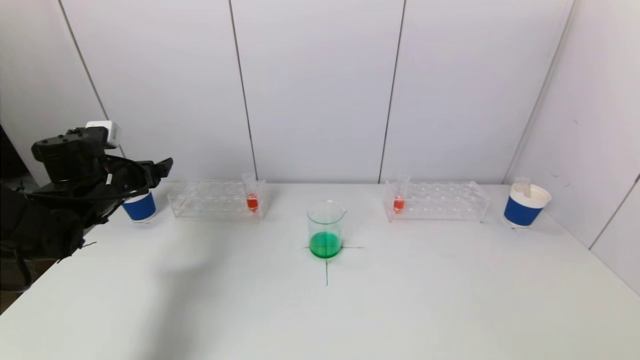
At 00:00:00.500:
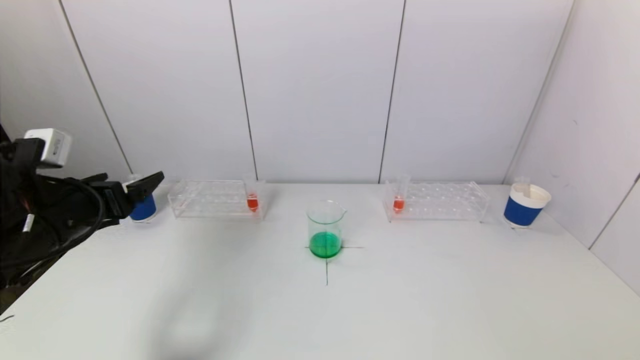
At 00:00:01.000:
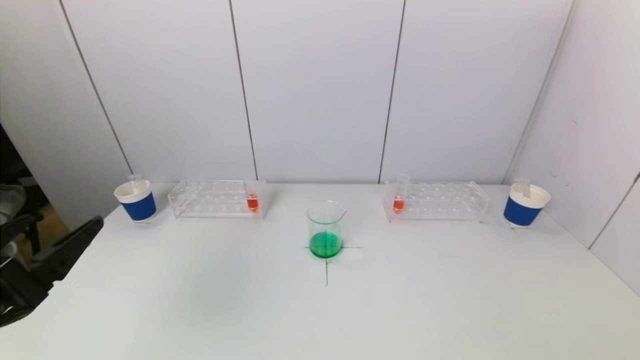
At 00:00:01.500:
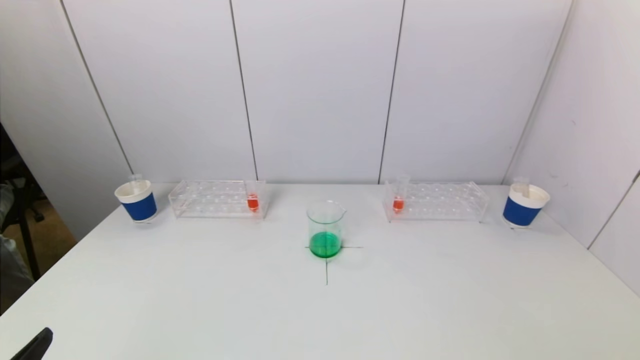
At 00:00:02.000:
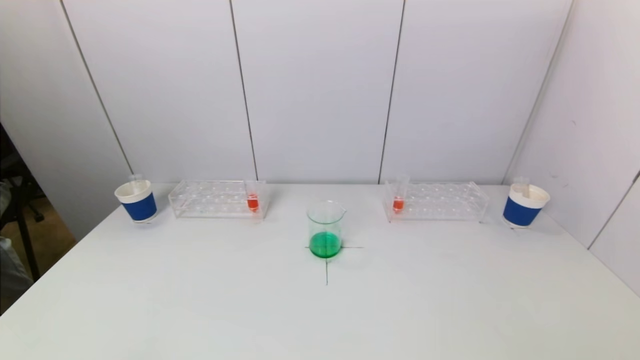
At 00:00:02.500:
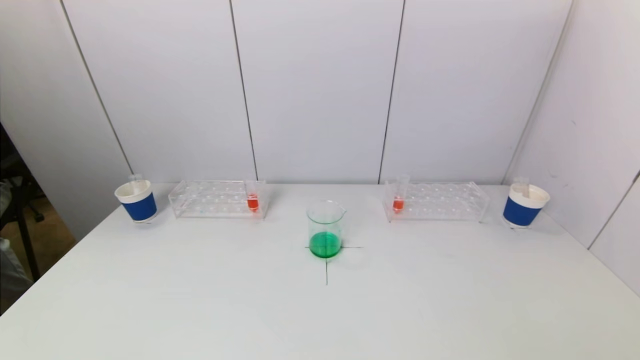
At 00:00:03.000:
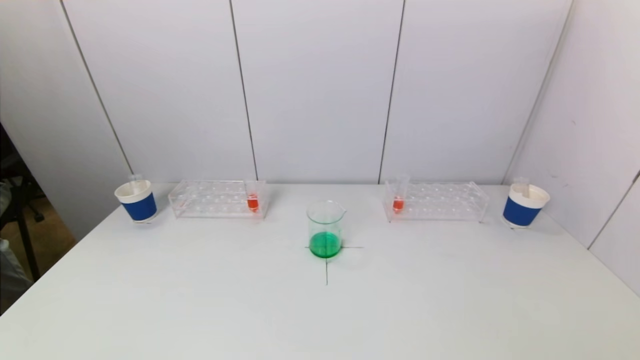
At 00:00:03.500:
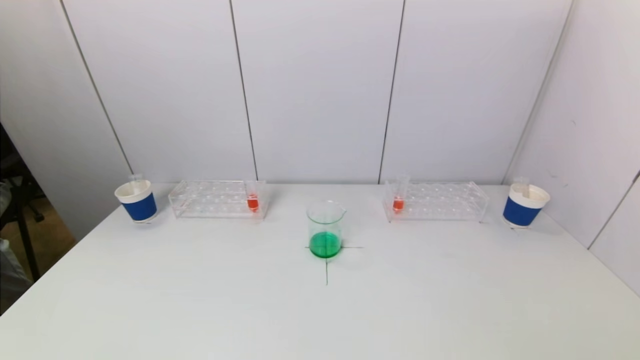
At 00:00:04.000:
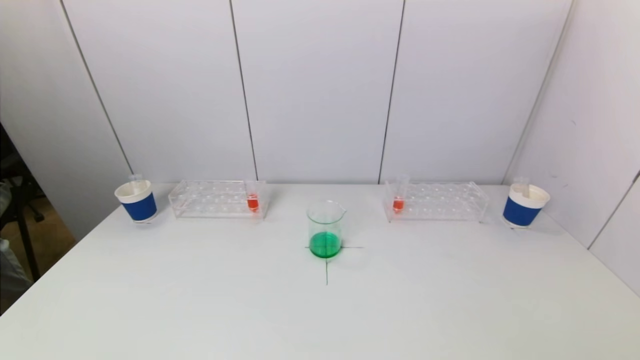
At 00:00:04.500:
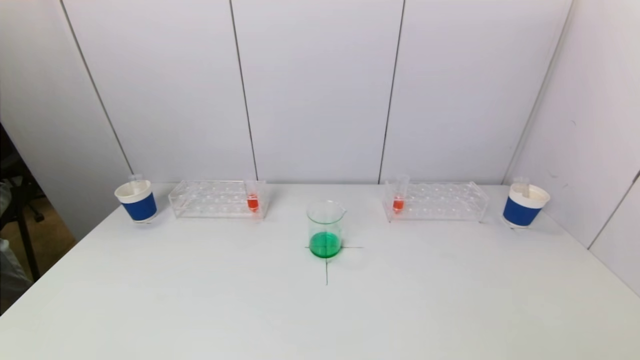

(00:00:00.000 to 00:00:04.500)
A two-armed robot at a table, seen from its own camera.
Task of the whole recording: pick up a test tube with pigment on left test tube rack and a test tube with pigment on right test tube rack by grippers and pour them into the beaker.
00:00:00.000 - 00:00:02.000: The left gripper is displaced backward by roughly 35 cm.
